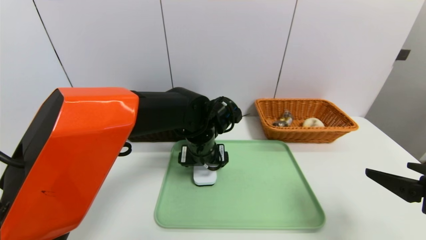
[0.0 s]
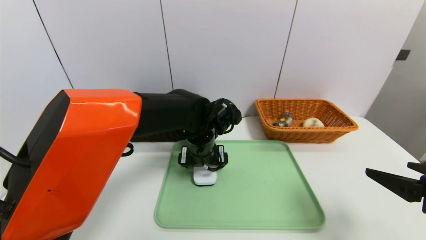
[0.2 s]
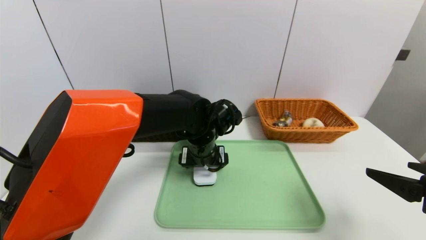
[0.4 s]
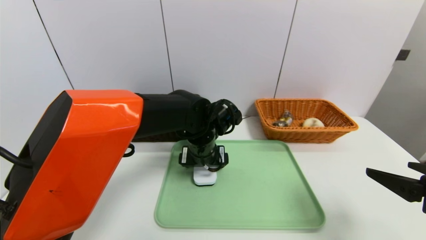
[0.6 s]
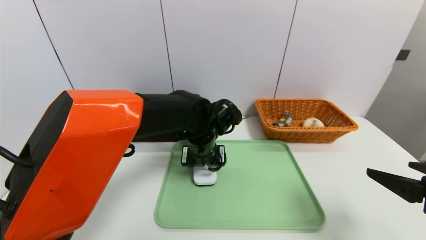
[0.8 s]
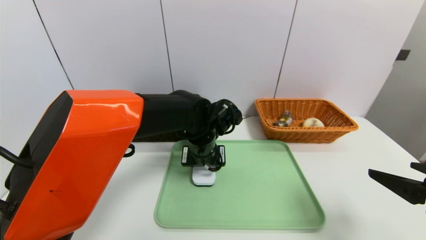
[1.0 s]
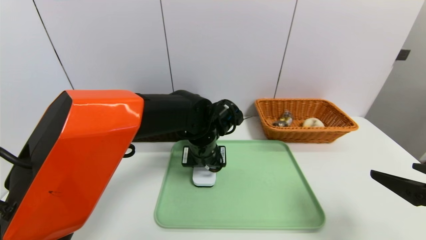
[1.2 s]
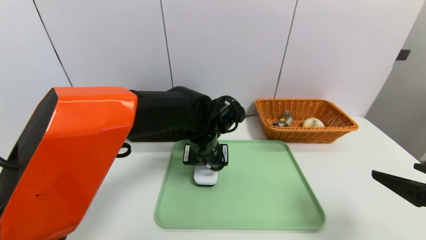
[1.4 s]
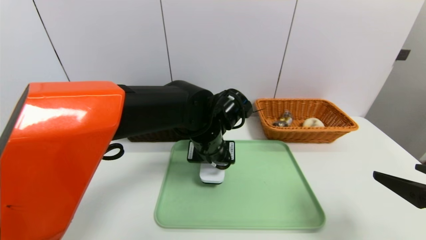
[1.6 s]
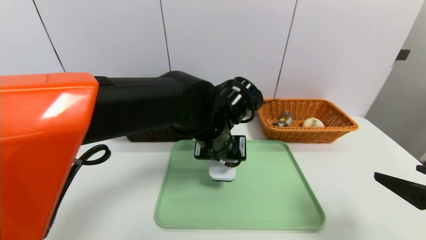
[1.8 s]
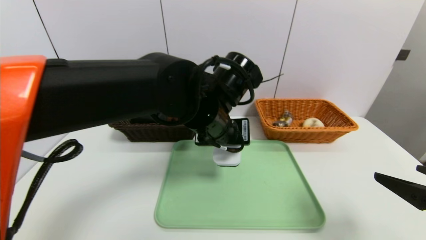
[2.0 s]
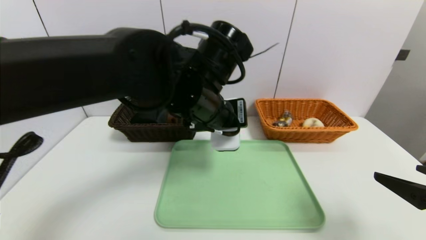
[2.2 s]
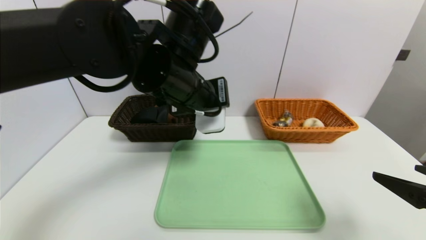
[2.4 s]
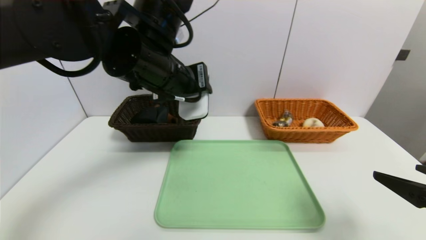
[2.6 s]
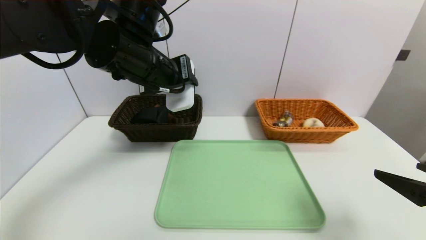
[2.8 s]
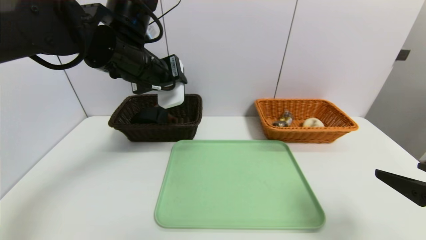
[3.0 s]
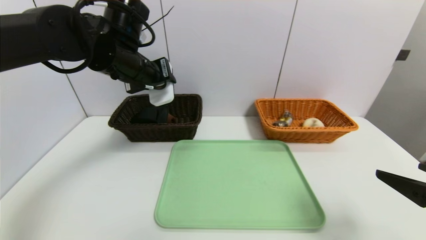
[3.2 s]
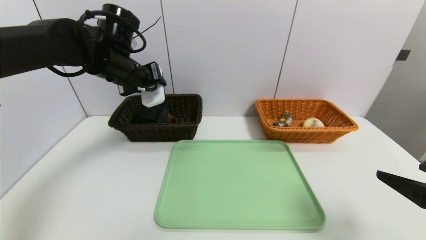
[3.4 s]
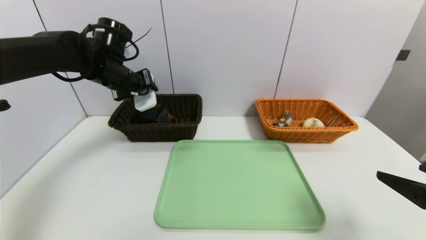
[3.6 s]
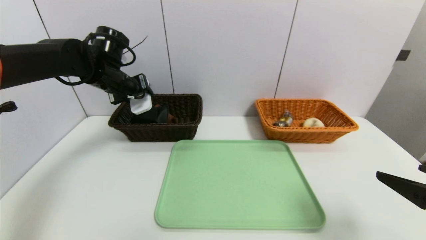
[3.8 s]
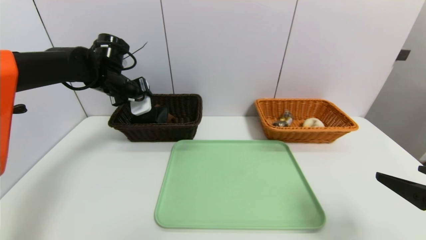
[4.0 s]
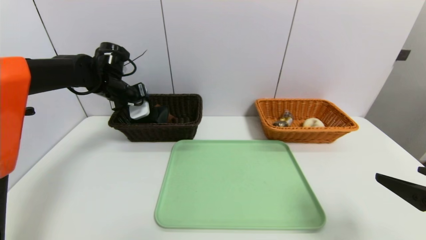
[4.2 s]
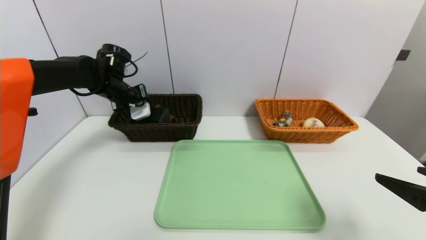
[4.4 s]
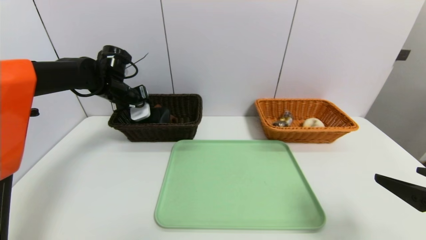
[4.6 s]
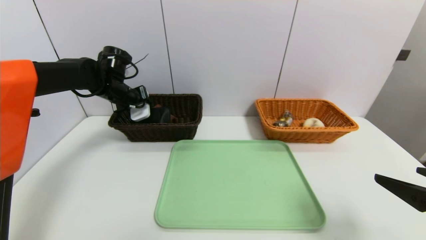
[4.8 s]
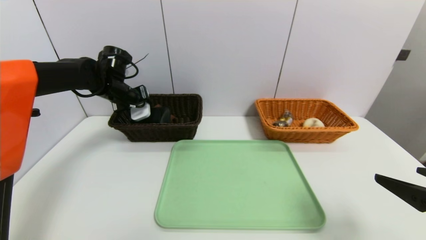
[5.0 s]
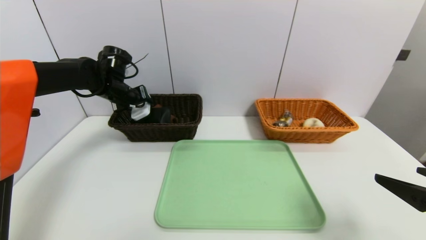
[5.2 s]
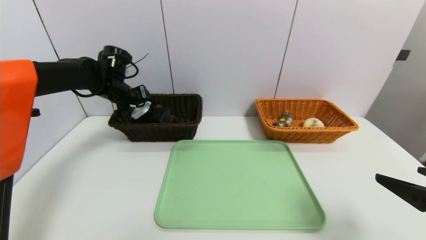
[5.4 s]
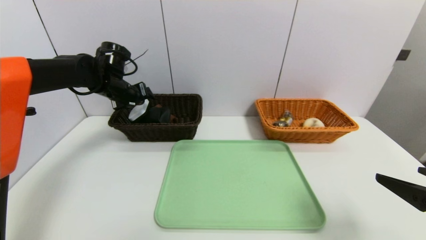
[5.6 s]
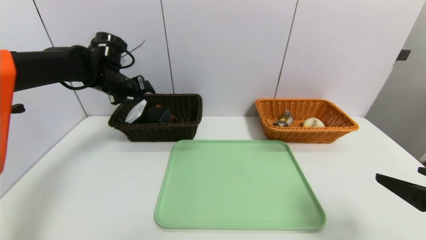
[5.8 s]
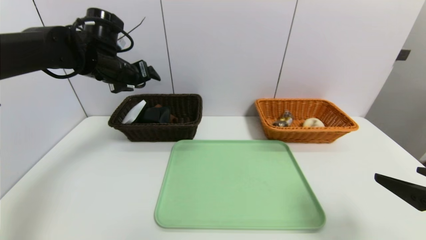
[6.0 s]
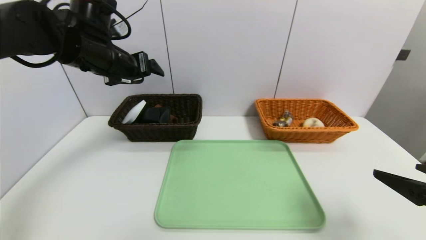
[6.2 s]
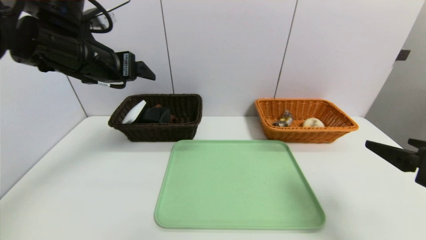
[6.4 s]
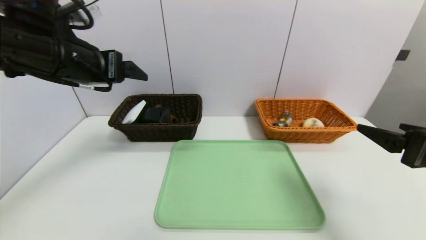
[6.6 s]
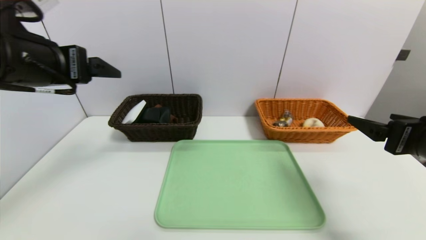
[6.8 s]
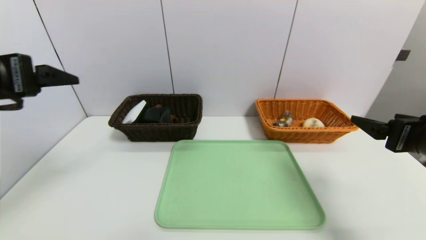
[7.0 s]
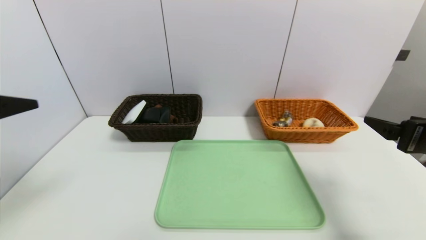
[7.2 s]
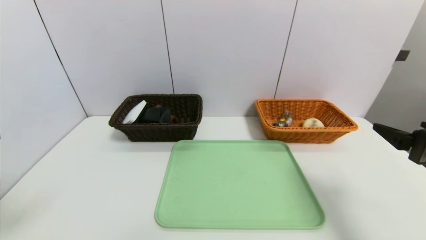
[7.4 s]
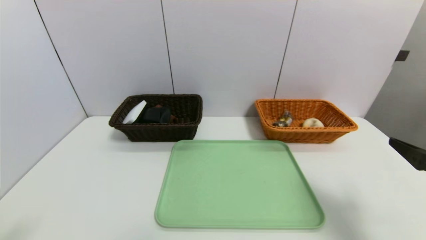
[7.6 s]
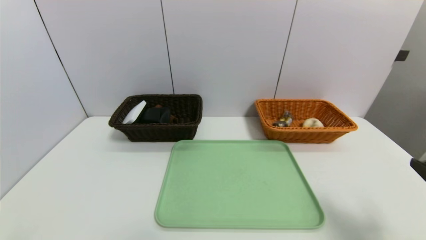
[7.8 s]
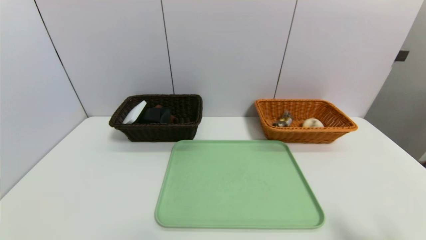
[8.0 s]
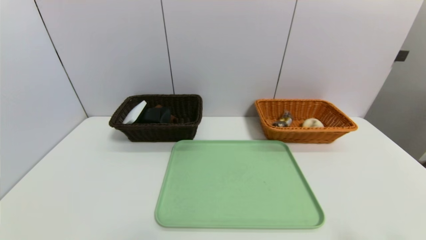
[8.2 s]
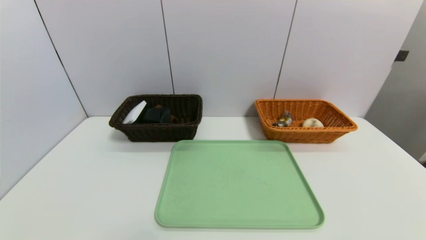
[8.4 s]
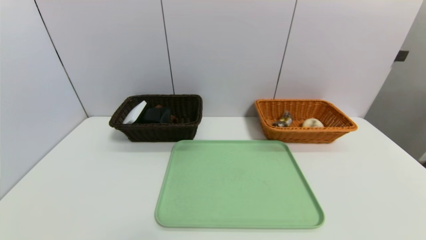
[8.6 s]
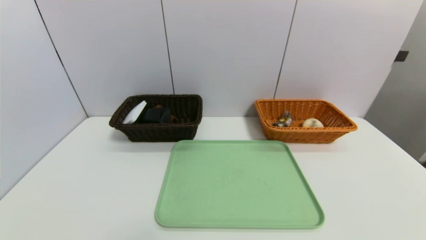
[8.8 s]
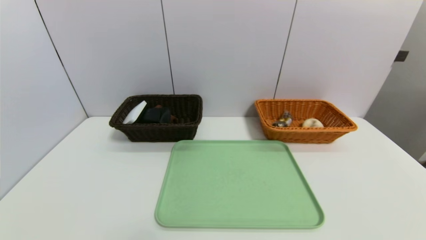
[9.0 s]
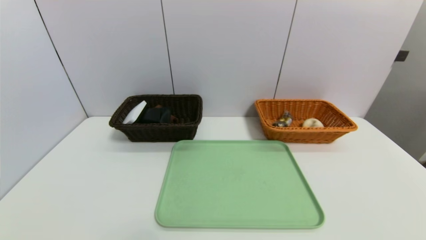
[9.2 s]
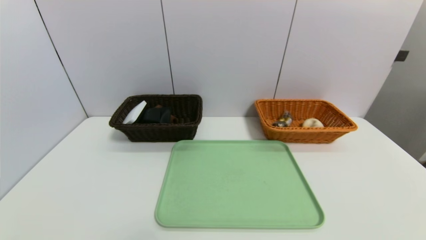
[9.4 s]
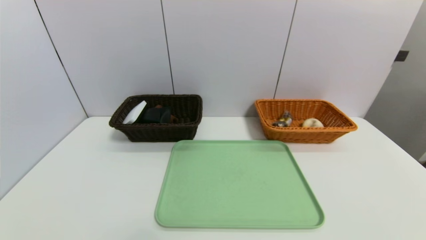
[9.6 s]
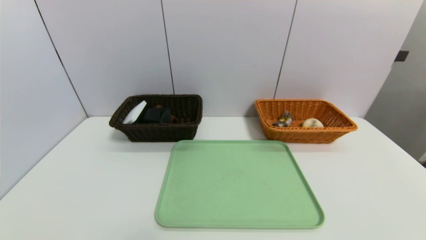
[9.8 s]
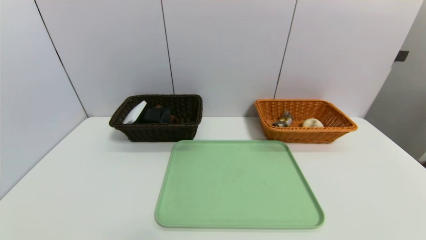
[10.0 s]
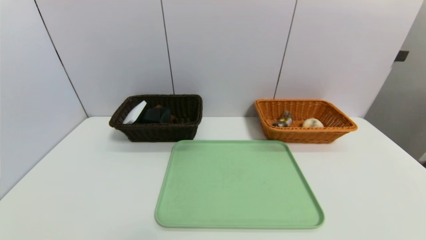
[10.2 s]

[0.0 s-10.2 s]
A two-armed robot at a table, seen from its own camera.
Task of the whole recording: place the food in the right basket with the right gripper, and place the non food items in the left basket with the left gripper.
Step, 0.0 to 5.6 s: Grasp the white eraser and put it in the left basket.
0.0 to 1.4 s: The left gripper closes up.
1.4 to 3.0 s: The left gripper moves upward and to the left, some 20 cm.
3.0 to 4.4 s: The left gripper travels forward, to the left and downward by approximately 20 cm.
4.4 to 5.8 s: The left gripper opens up.
5.8 to 7.2 s: The left gripper shifts about 30 cm backward. Meanwhile the right gripper goes roughly 10 cm forward.
7.2 to 8.8 s: The right gripper heads backward and downward, covering roughly 25 cm; the left gripper moves downward and backward, roughly 25 cm.

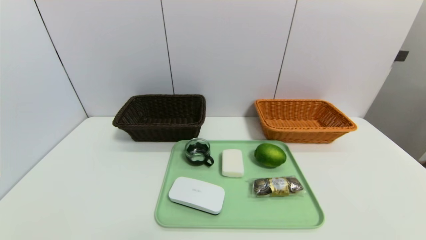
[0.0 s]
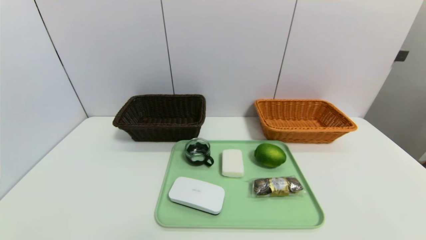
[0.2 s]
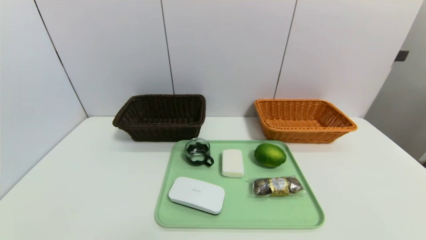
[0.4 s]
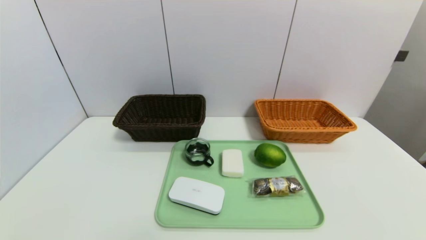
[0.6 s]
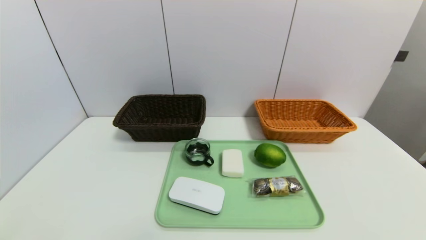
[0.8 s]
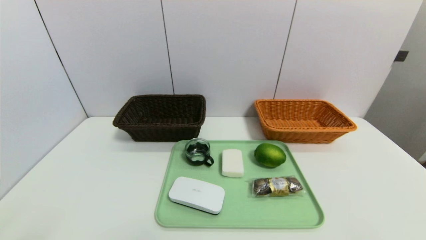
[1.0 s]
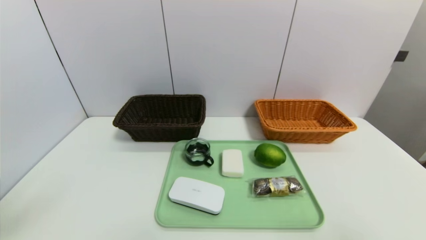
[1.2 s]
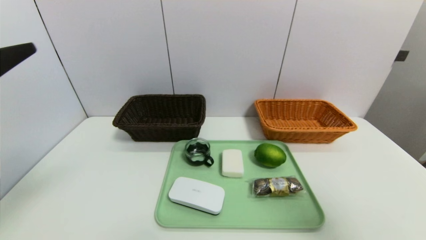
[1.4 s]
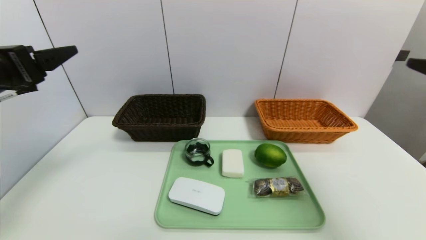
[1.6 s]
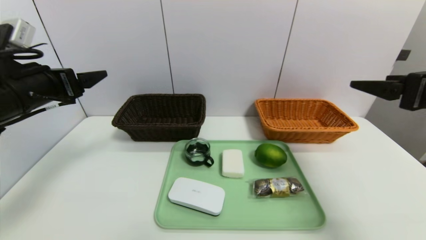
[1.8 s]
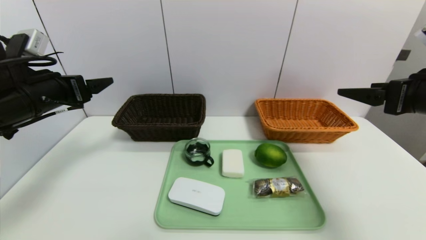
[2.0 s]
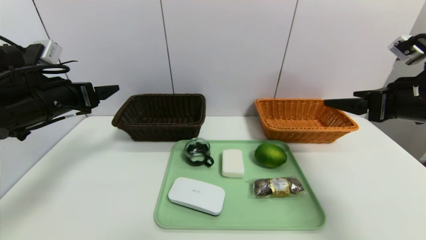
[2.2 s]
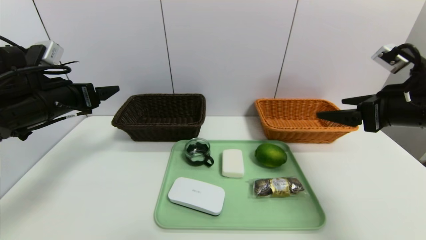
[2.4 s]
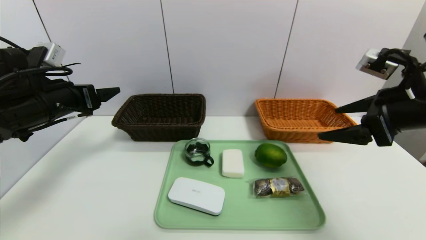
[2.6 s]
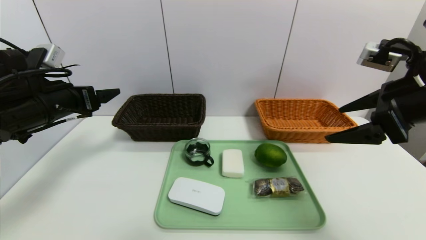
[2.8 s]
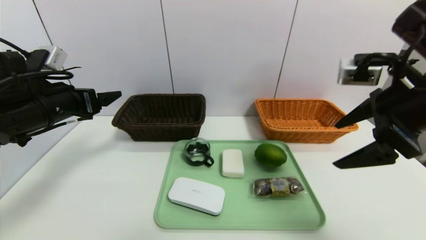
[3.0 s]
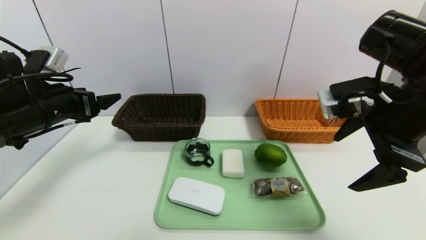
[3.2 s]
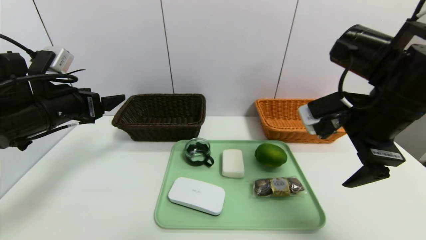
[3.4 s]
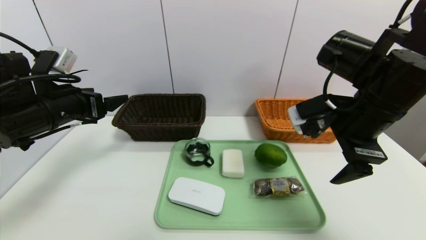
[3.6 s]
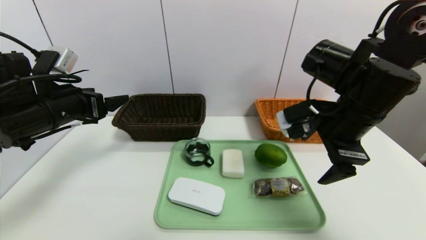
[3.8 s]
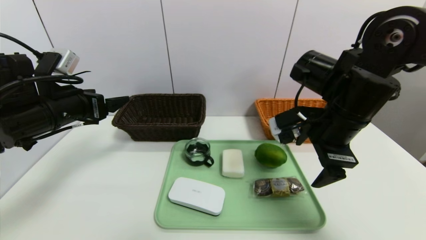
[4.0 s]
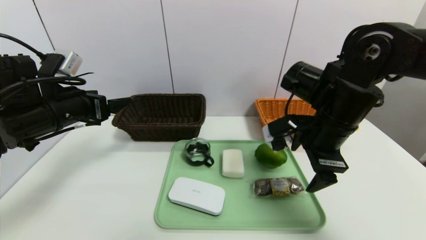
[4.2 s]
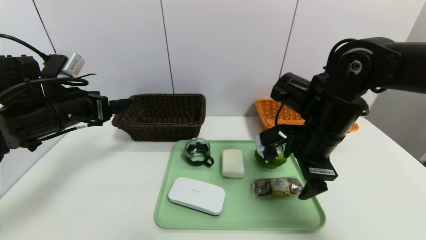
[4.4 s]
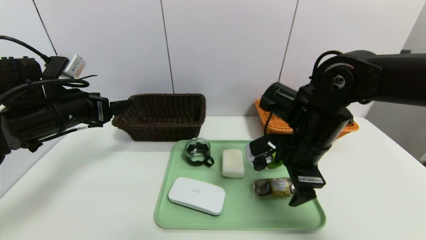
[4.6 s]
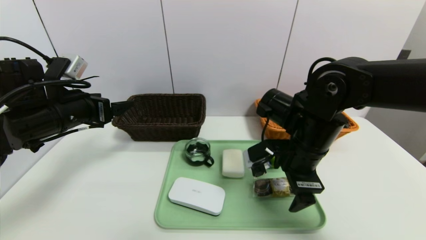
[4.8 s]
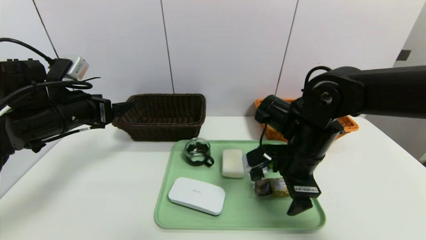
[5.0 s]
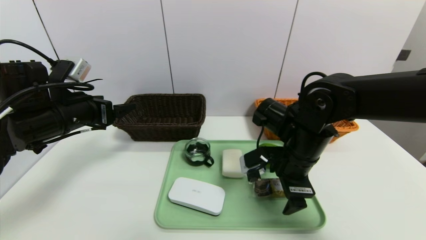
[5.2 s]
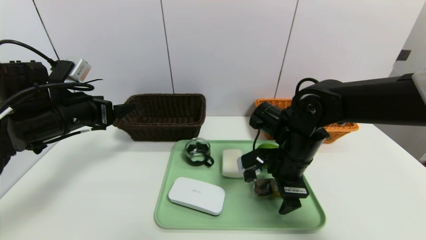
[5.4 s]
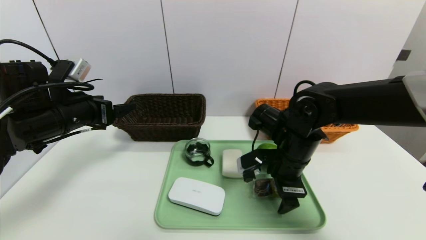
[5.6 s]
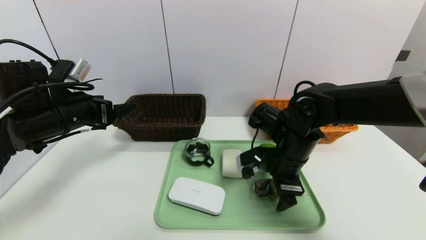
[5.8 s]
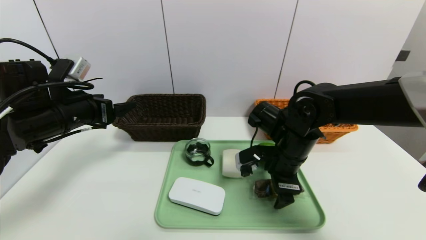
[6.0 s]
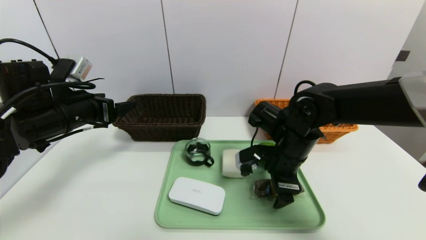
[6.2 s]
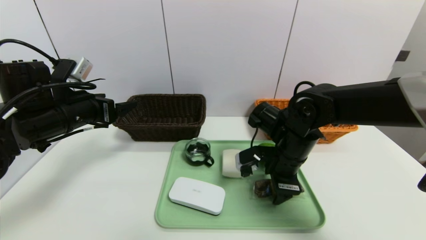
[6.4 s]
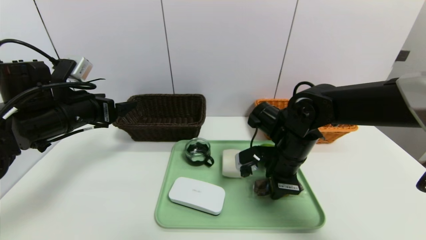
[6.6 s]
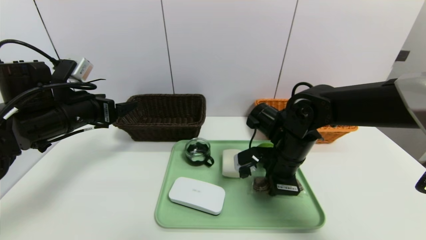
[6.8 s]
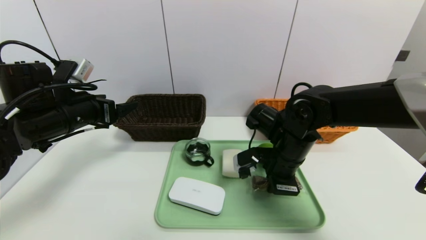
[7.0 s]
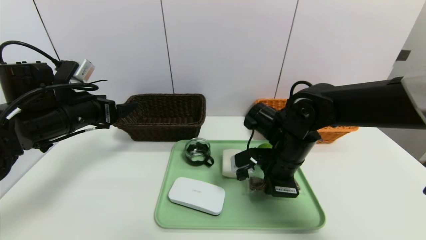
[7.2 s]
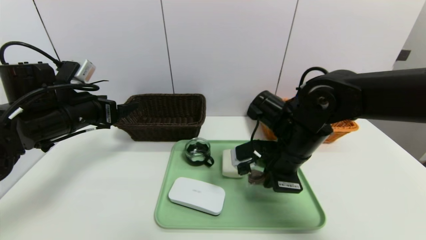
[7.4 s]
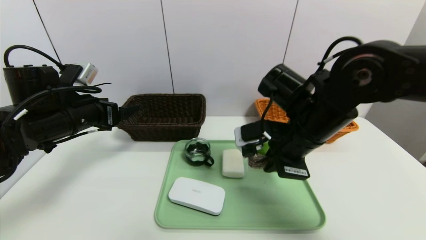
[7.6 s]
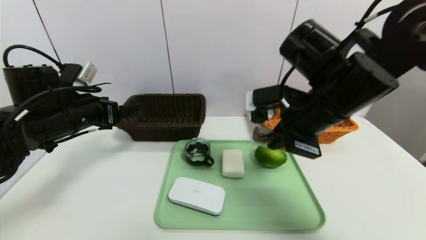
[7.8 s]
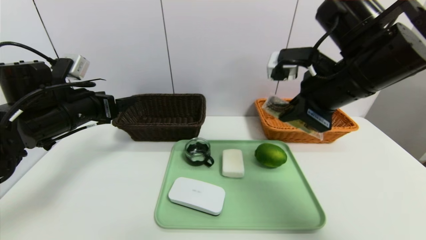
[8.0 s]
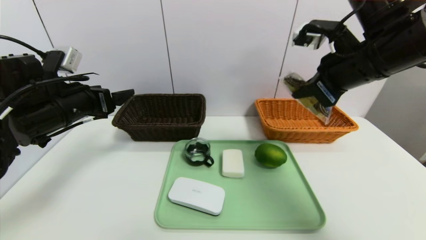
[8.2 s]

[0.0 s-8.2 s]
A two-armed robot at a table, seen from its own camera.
Task of the whole recording: place the food in the right basket with the right gripper, and place the non food items in the left basket with the left gripper.
0.0 to 1.6 s: The two grippers go some 30 cm upward and forward.
1.6 to 3.2 s: The left gripper travels downward and forward by some 10 cm, while the right gripper is displaced to the left and forward by about 10 cm.
3.2 to 5.0 s: The right gripper is displaced downward, to the left and forward by roughly 15 cm.
5.0 to 6.6 s: The right gripper ends up roughly 5 cm from where it was, and closes.
6.6 to 8.2 s: The right gripper shifts approximately 20 cm upward and to the right, and closes its fingers.
